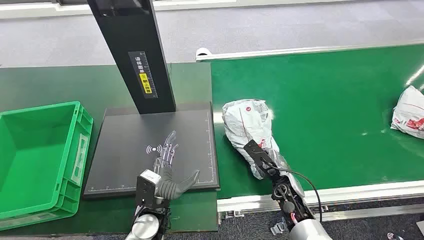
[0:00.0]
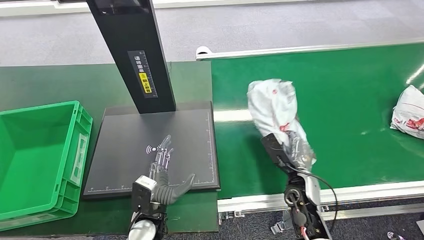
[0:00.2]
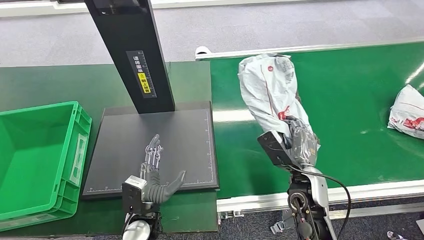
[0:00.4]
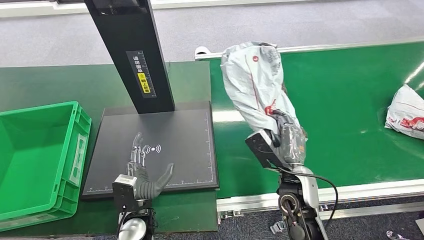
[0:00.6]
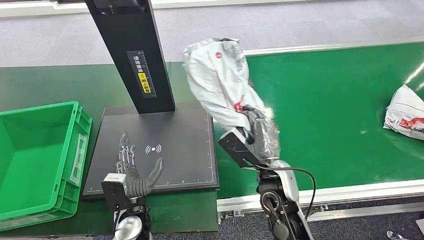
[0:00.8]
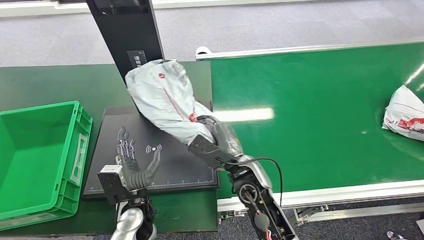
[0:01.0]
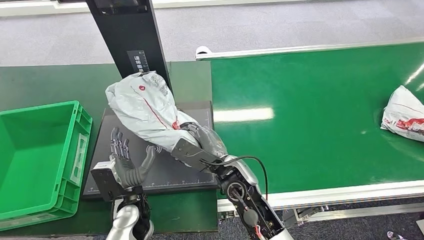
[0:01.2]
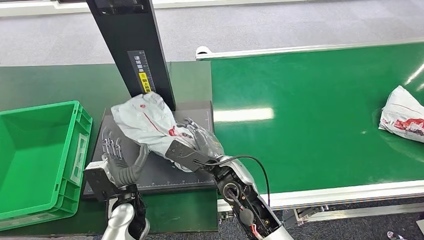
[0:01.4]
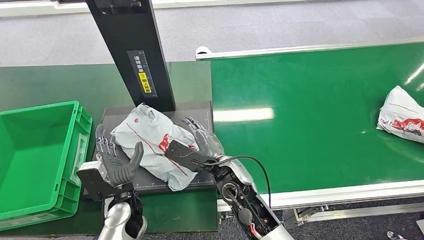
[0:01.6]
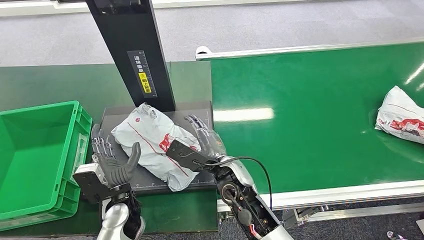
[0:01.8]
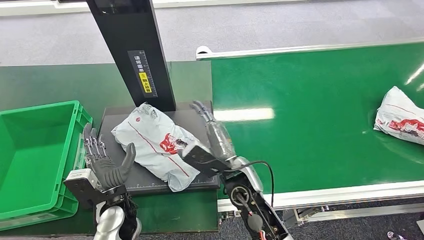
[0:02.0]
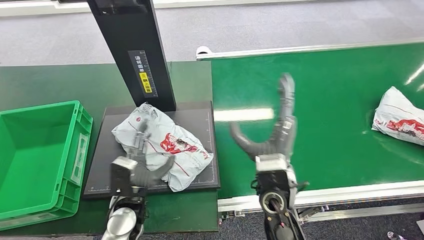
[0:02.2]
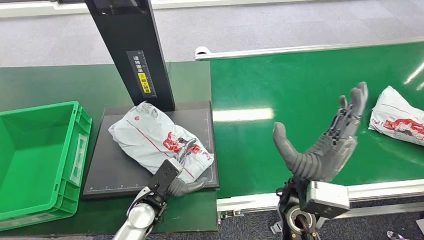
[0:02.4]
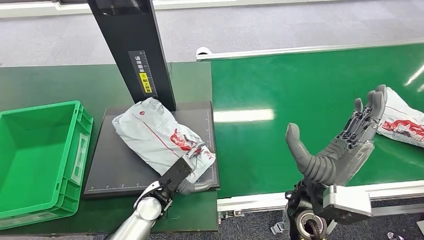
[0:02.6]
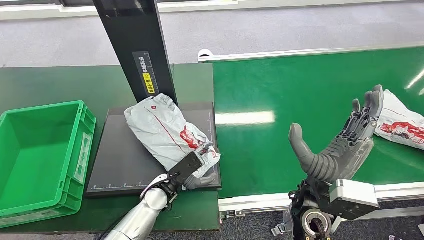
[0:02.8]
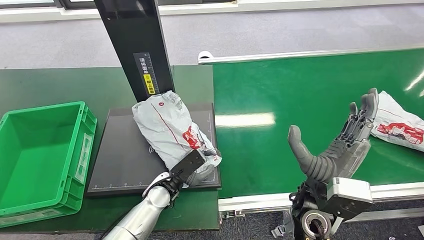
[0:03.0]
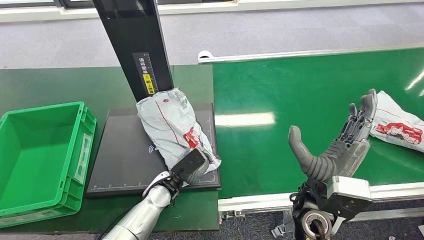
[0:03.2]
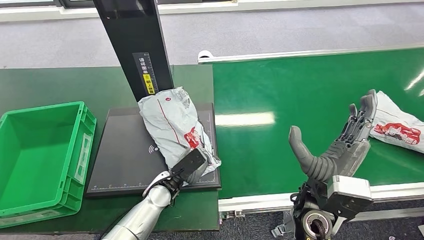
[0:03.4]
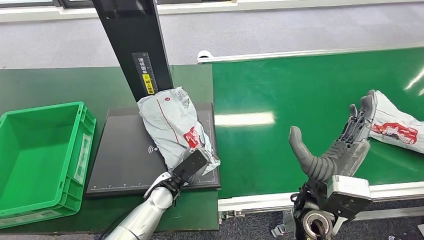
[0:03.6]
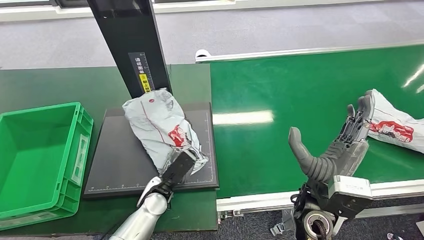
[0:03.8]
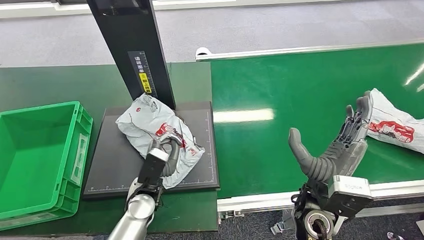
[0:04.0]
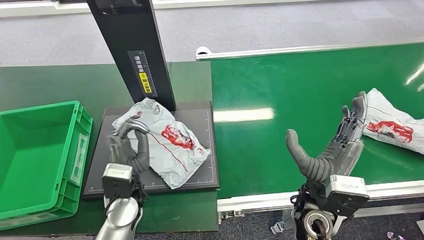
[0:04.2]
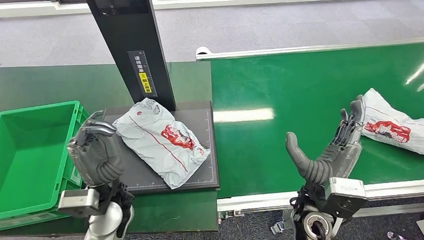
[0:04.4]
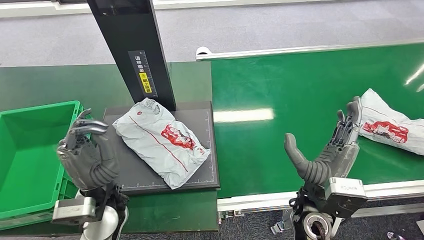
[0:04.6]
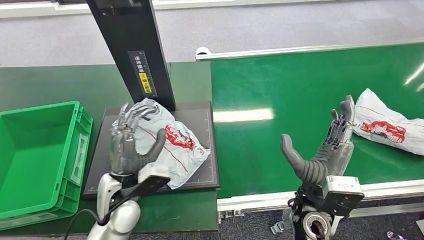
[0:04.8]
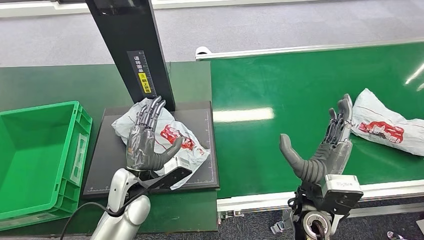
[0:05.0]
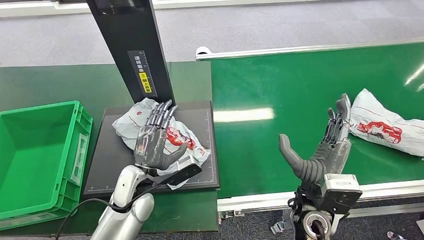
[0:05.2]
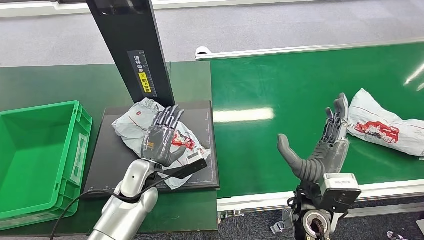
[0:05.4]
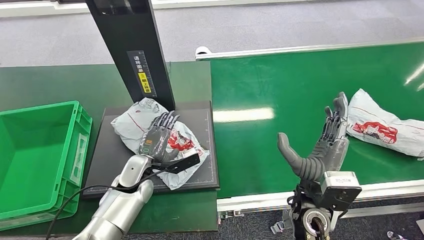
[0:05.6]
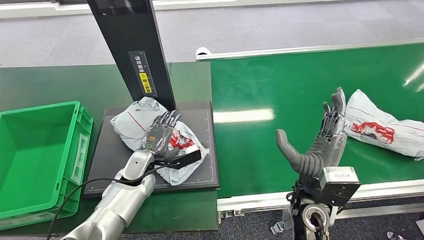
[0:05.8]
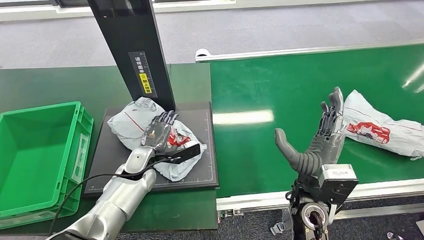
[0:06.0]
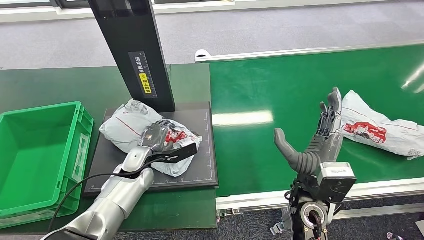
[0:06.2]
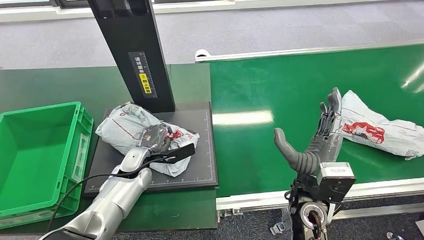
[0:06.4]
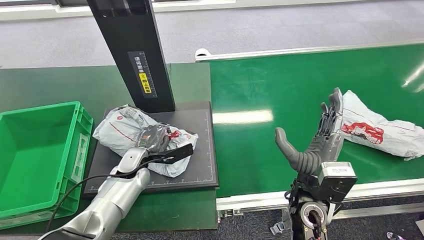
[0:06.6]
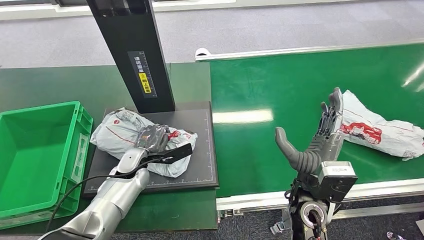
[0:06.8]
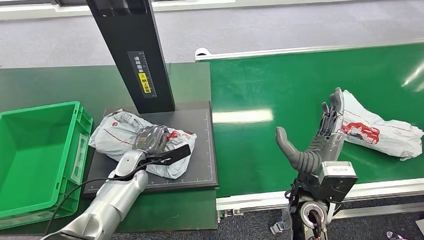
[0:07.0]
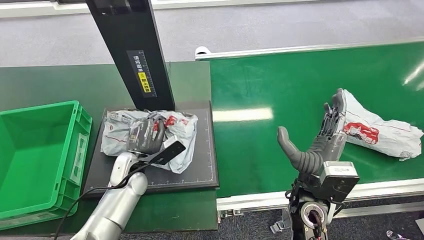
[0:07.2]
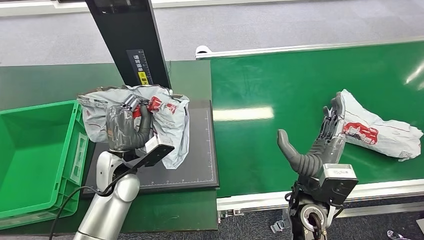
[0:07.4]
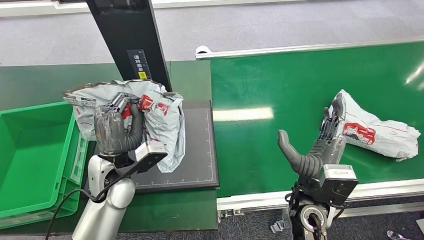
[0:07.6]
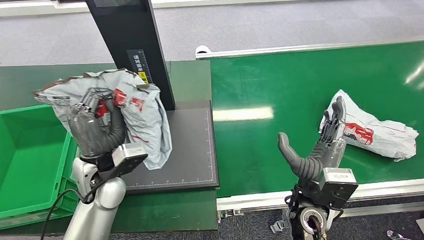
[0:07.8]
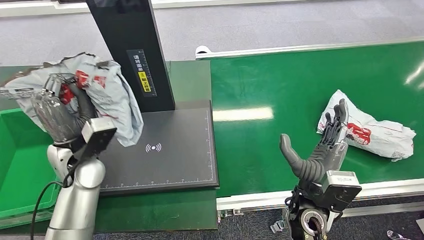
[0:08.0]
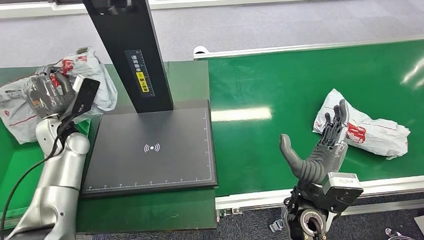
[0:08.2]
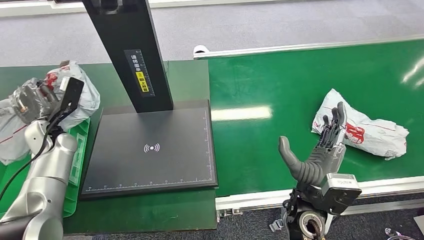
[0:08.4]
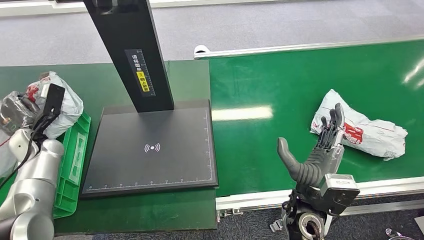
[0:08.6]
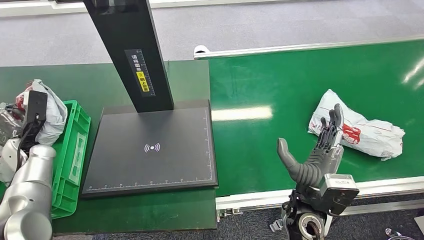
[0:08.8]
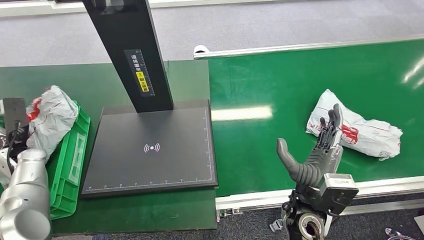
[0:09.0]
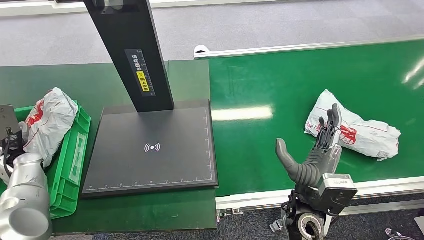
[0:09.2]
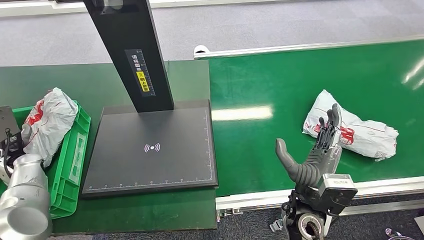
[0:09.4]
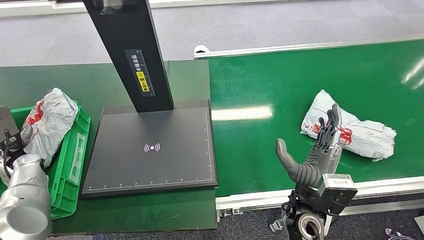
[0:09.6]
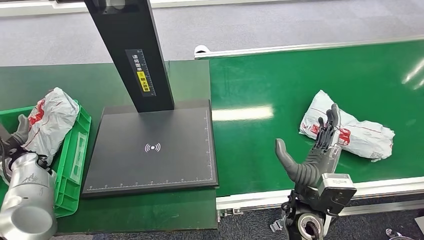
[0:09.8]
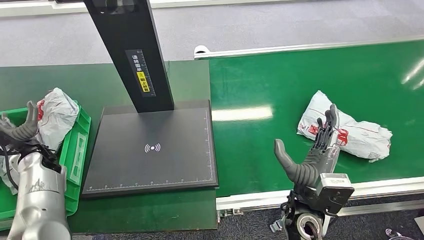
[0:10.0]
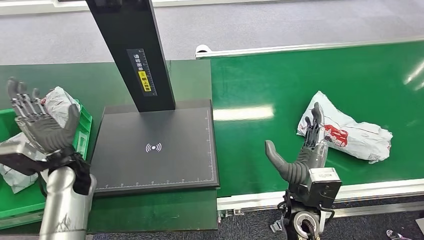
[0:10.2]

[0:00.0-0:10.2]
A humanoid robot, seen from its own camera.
Task of the whole recording: Weigh the package on the weighing device and place it in the left basket.
Step, 0:00.0 to 0:00.8: Pick up the package from the conveyor belt.
Step, 0:01.2 to 0:02.6: Place the package onto the inbound machine.
Step, 0:05.8 to 0:07.6: Pick up the package from the inbound machine.
Step, 0:07.8 to 0:10.2: Place the package into the parcel locker.
0:04.4 to 0:05.8: The left hand moves forward and downward, about 15 cm.
